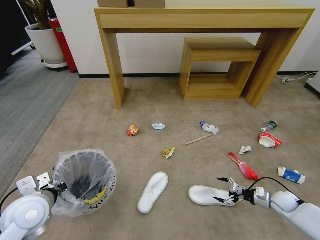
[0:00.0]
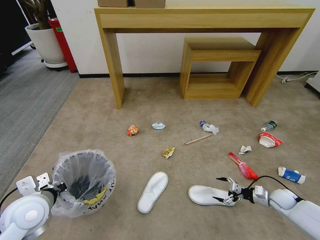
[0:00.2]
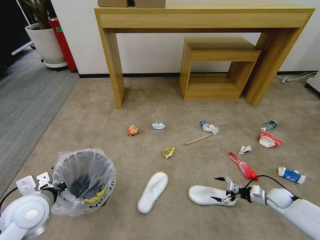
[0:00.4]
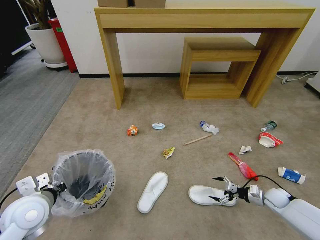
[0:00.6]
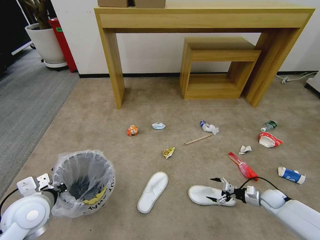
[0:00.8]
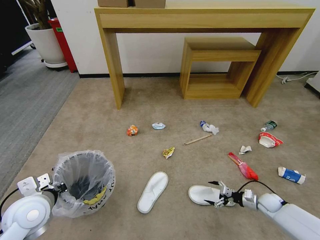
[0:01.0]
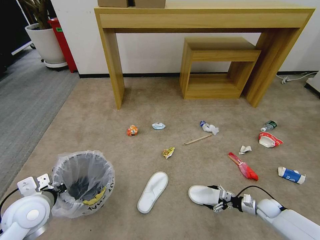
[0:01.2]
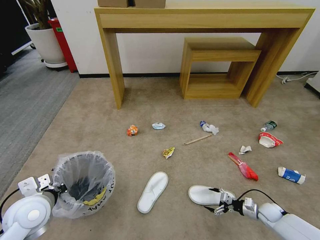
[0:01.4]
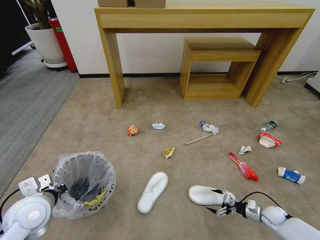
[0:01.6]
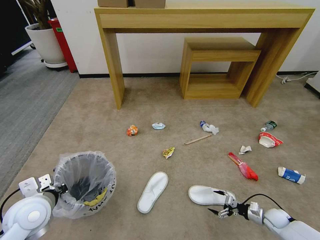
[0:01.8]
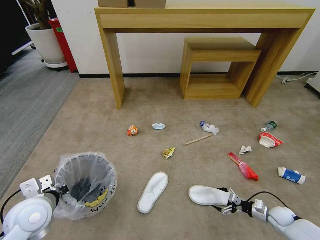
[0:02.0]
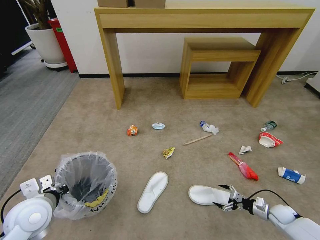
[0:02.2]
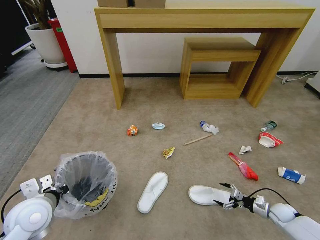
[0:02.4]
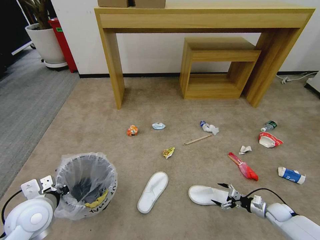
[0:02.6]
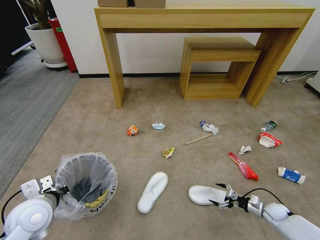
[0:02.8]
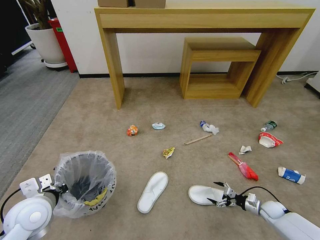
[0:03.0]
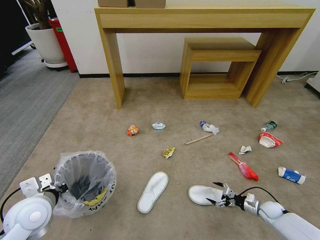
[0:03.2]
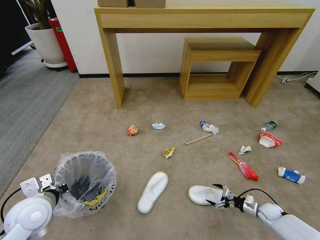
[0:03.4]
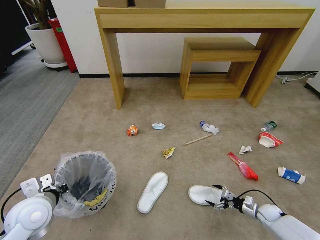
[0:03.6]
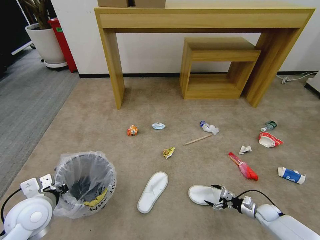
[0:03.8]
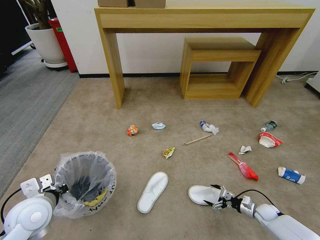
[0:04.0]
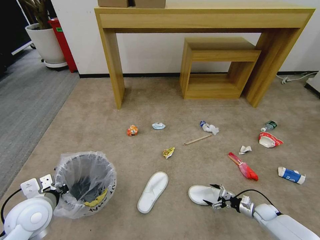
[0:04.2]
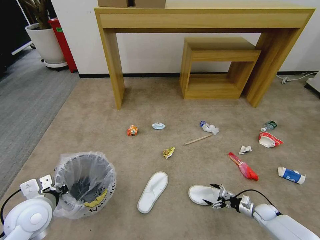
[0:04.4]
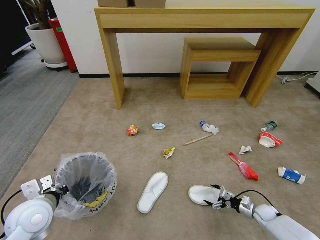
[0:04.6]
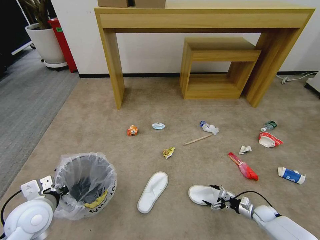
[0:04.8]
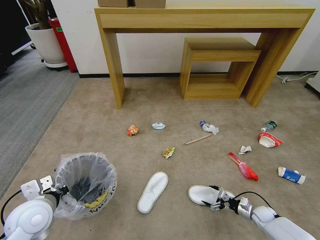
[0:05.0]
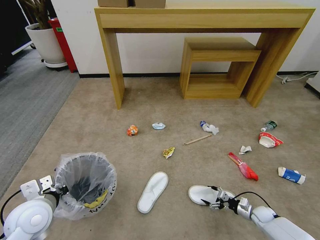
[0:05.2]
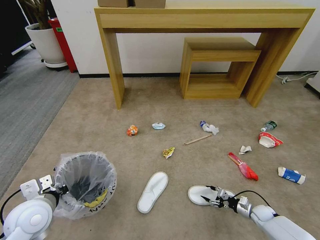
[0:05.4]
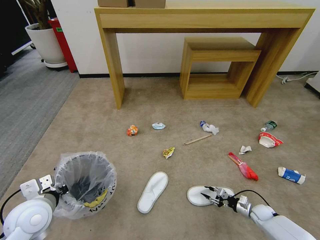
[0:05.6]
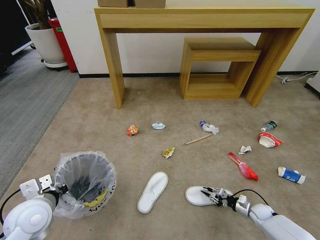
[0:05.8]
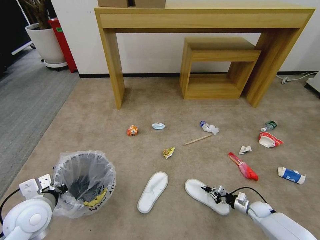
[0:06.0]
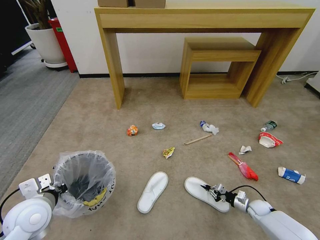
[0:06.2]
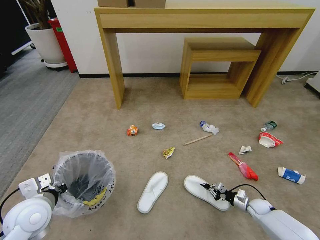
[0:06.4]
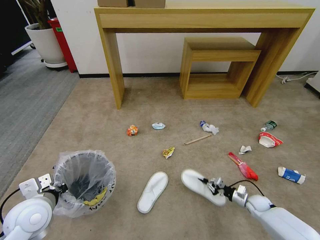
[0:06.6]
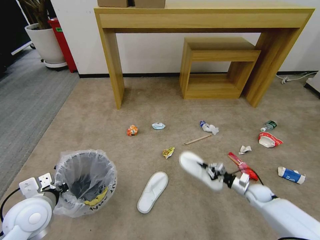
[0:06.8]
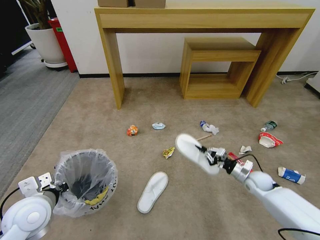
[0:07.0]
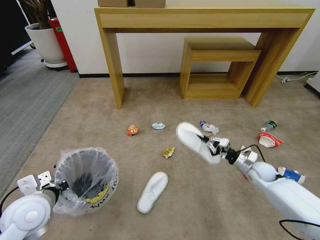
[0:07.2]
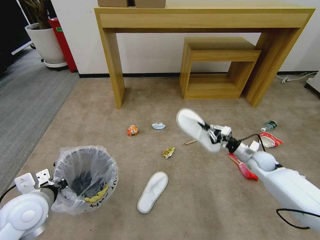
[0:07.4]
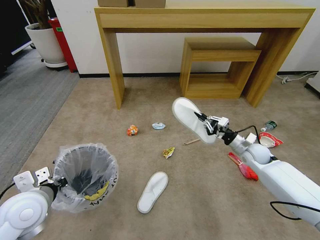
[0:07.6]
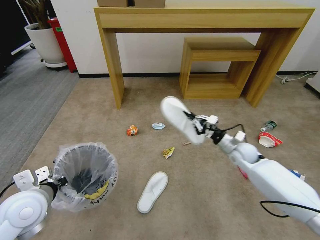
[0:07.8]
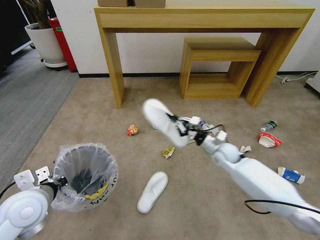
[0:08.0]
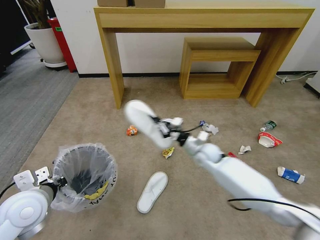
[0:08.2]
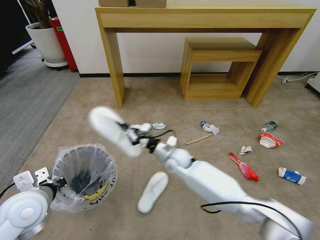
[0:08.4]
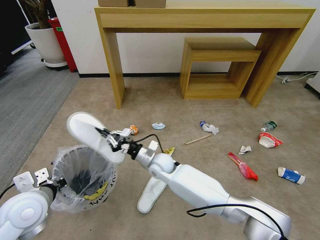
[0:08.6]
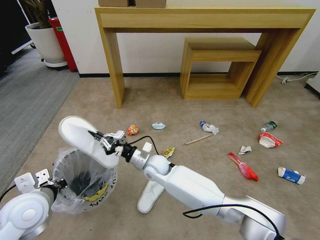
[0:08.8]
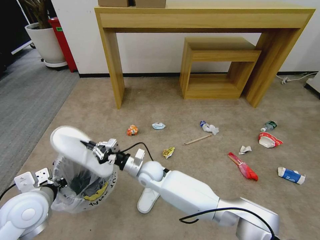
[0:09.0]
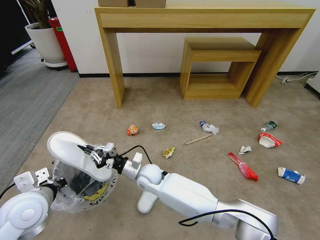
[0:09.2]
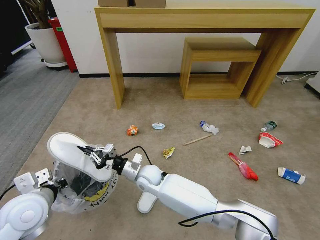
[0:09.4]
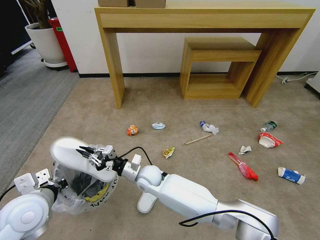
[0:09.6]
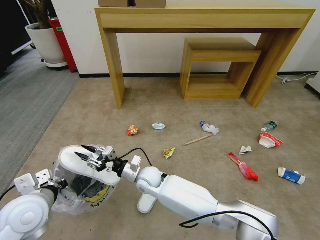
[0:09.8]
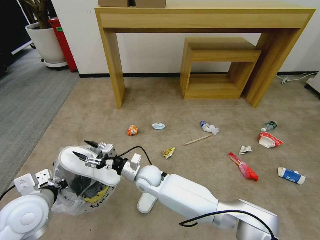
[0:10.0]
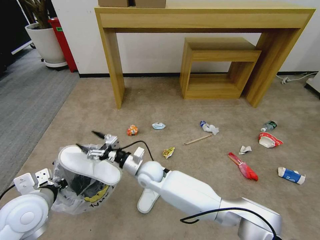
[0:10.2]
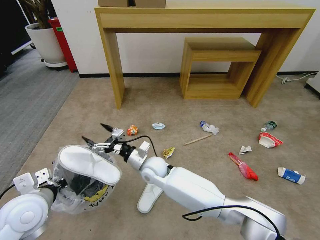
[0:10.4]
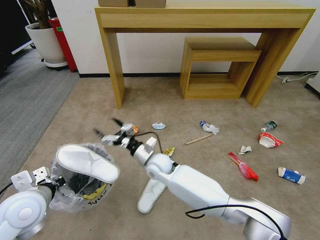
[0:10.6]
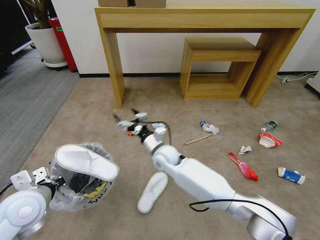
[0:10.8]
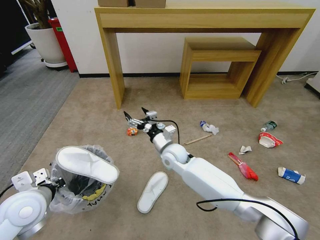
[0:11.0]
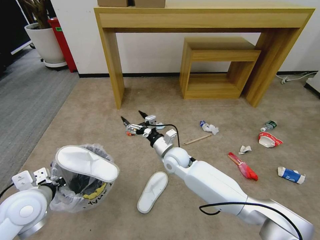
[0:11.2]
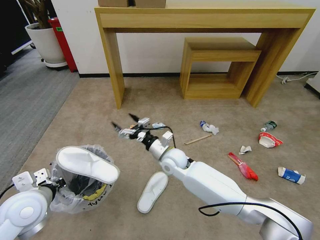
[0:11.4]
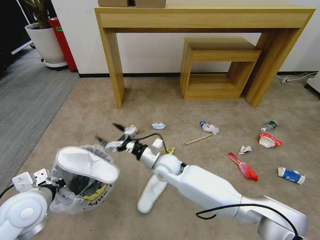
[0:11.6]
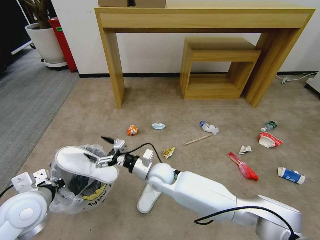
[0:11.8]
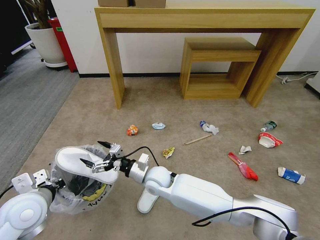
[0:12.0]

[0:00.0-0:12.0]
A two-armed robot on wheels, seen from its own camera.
Task of the whole recording: Pick up the trash bin and place the garbage on the floor into it.
0:00.0 to 0:01.6: The right gripper heads downward, covering about 5 cm.
0:01.6 to 0:04.4: The grippers move only a little.
0:04.4 to 0:06.0: The right gripper closes.
0:06.0 to 0:07.6: The right gripper goes about 30 cm upward and forward.
0:07.6 to 0:09.0: The right gripper heads to the left, covering some 40 cm.
0:09.0 to 0:10.4: The right gripper opens its fingers.
0:10.4 to 0:12.0: The right gripper moves some 10 cm to the right and comes back.

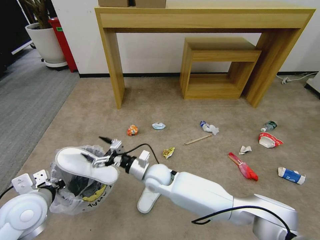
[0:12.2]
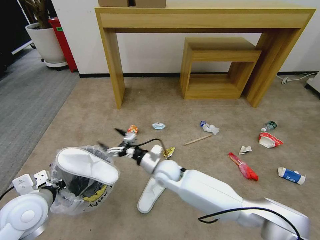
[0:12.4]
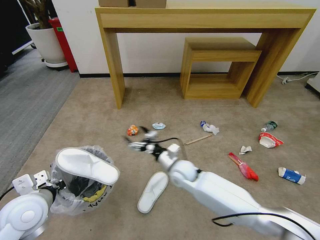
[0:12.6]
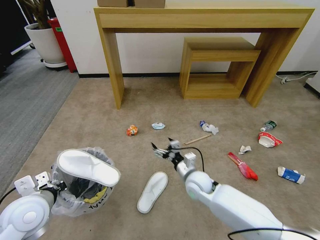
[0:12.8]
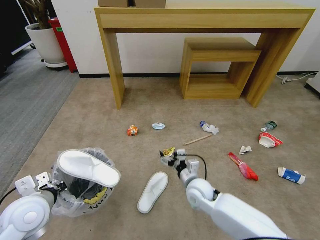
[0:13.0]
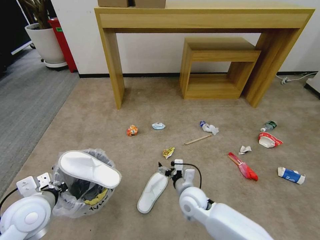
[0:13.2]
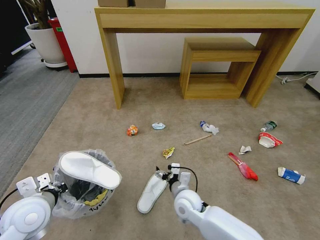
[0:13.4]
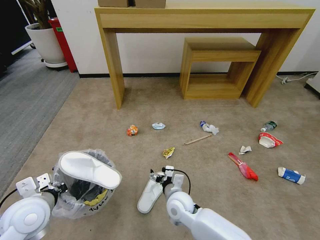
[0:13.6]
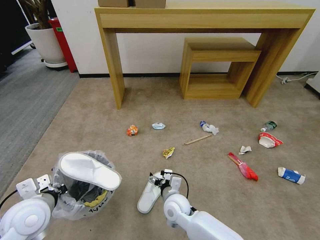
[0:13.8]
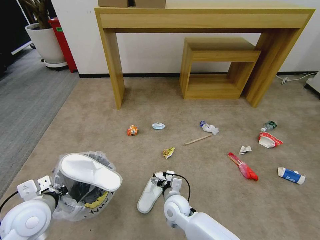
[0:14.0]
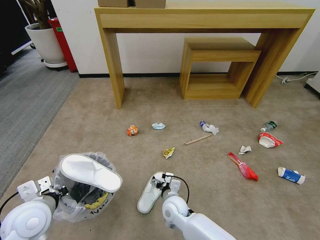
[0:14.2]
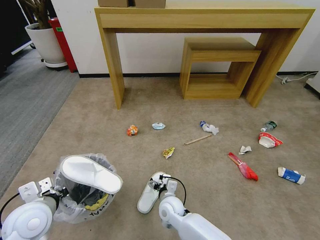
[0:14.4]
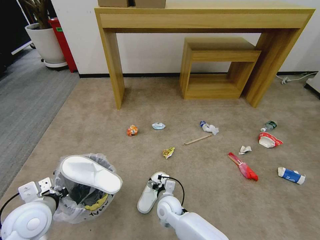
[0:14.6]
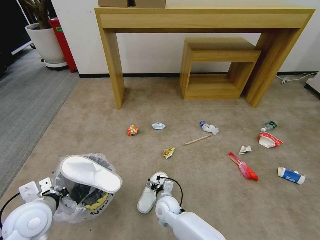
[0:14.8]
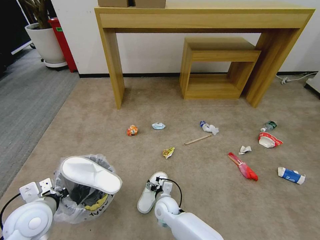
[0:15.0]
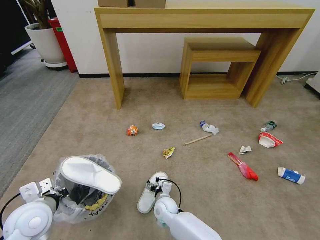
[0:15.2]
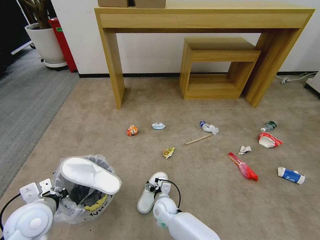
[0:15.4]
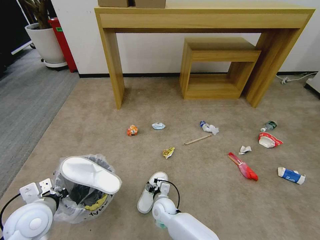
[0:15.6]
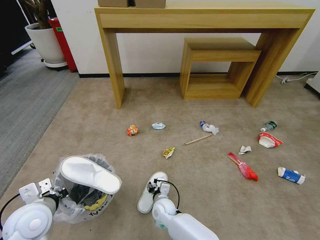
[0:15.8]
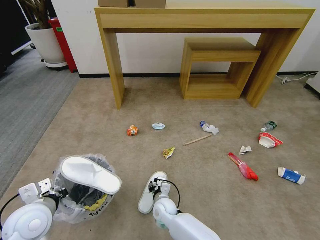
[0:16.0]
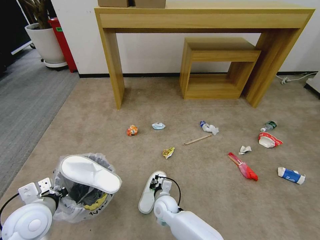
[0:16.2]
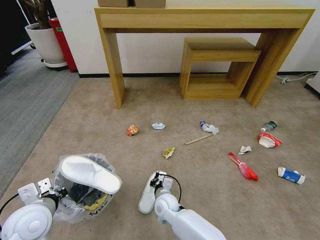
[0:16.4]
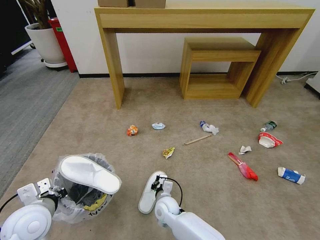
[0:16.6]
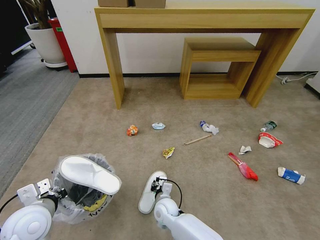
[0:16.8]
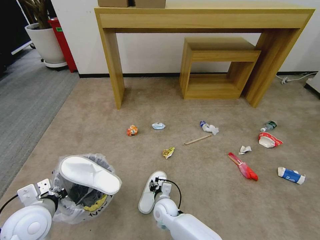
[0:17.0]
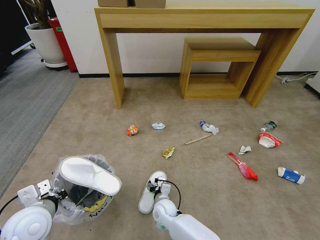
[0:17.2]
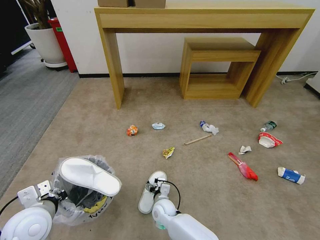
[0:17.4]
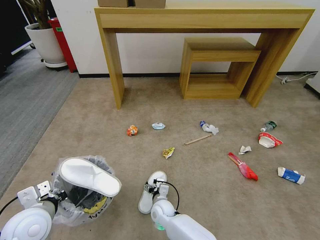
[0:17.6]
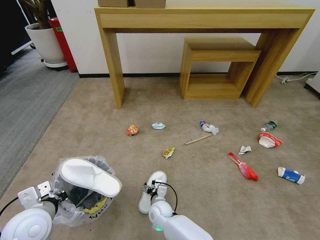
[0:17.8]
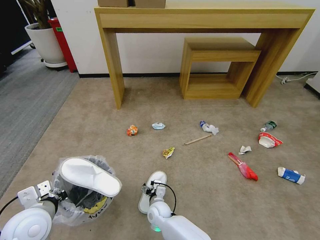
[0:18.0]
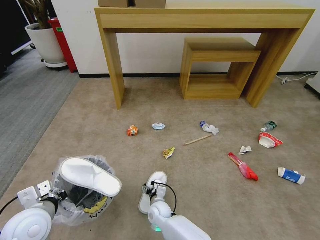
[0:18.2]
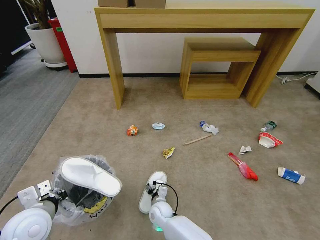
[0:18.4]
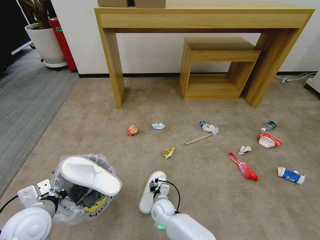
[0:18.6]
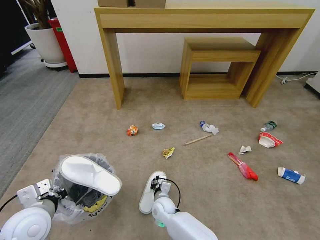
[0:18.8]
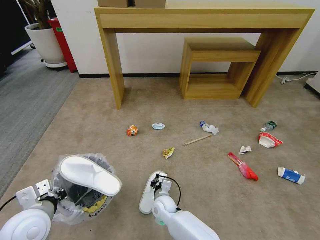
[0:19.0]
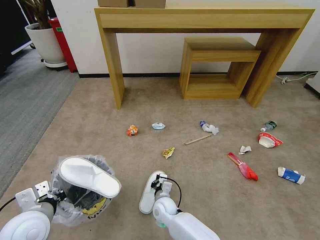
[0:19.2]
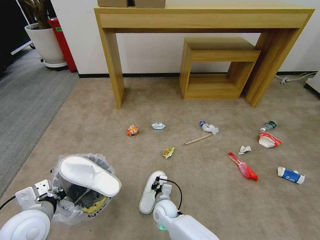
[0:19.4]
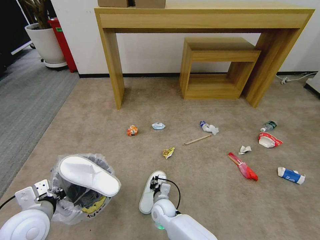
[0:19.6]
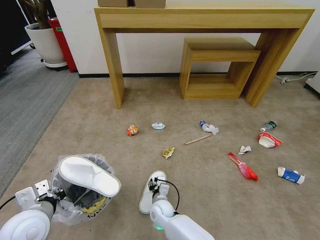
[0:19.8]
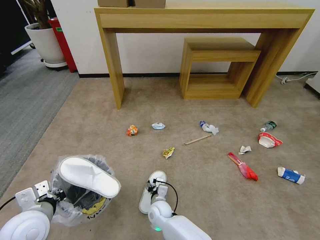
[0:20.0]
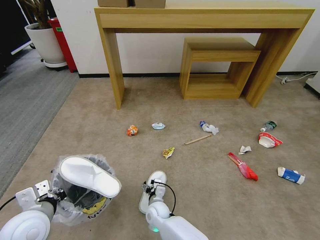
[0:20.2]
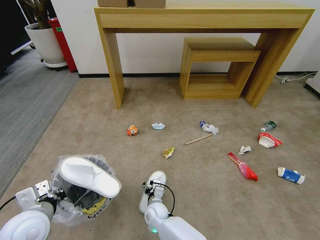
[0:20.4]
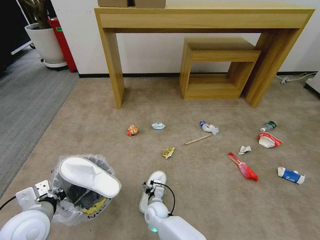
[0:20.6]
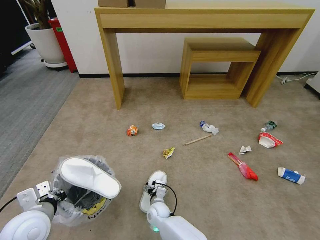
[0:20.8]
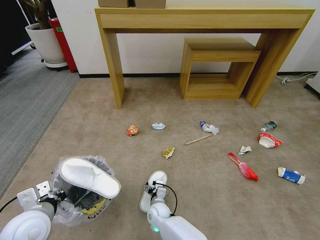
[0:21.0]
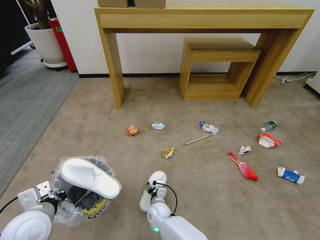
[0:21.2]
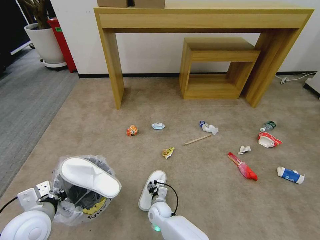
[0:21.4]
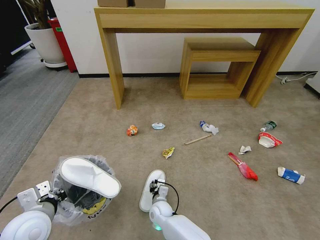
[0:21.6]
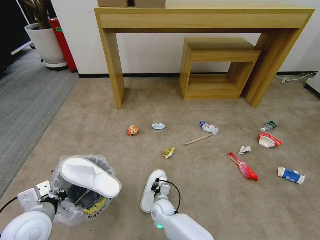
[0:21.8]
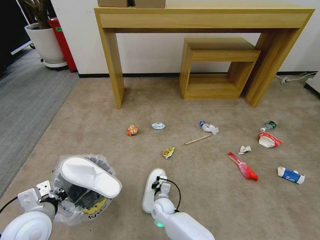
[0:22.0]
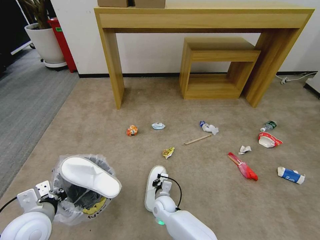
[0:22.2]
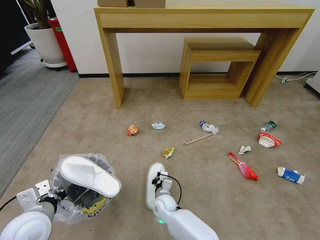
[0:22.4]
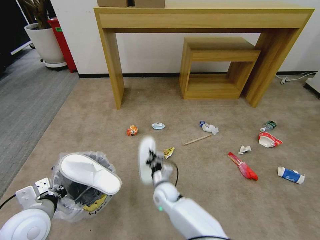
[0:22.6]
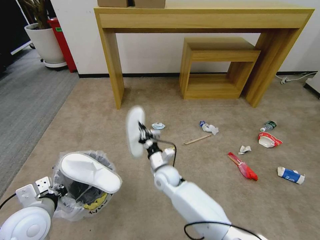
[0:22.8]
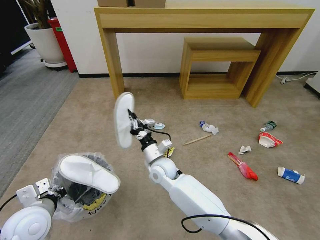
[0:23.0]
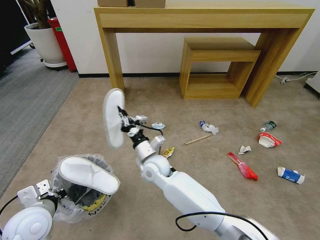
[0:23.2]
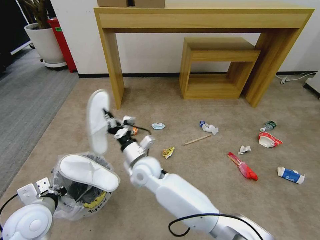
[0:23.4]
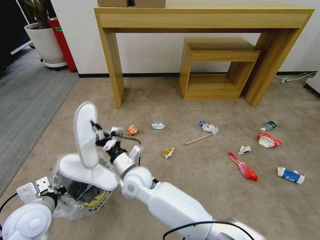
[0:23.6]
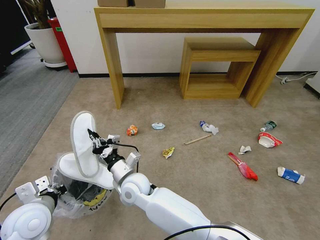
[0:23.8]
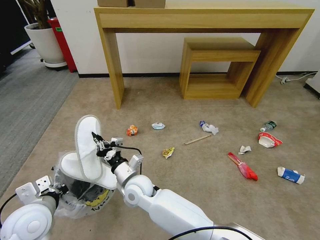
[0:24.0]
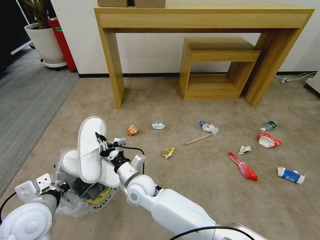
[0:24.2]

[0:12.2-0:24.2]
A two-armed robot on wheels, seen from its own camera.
Task of the whole recording: Pick up the trash bin and place the garbage on the floor into it.
0:12.2 to 0:13.8: The right gripper moves downward, to the right and backward, approximately 15 cm.
0:13.8 to 0:15.2: The right gripper is displaced downward by about 10 cm.
0:15.2 to 0:16.6: The right gripper closes.
0:16.6 to 0:18.2: The right gripper ends up about 5 cm from where it was, and opens.
0:18.2 to 0:19.8: The right gripper closes its fingers.
0:19.8 to 0:21.2: The right gripper opens.
0:21.2 to 0:22.6: The right gripper heads upward, covering approximately 10 cm, and closes up.
0:22.6 to 0:24.2: The right gripper goes roughly 15 cm upward and to the left.
